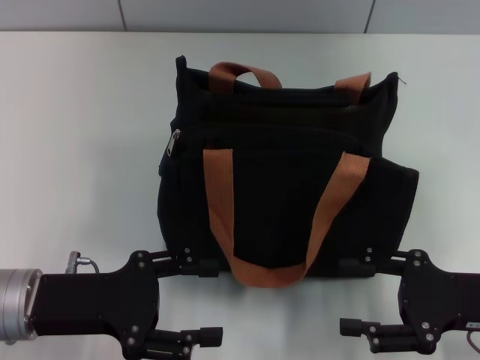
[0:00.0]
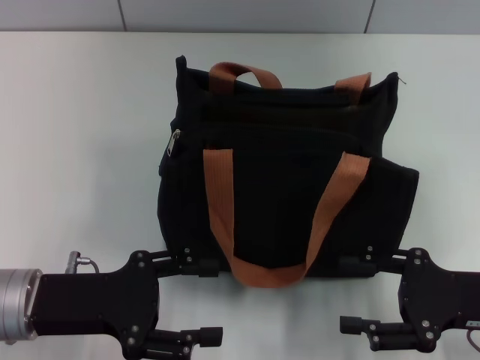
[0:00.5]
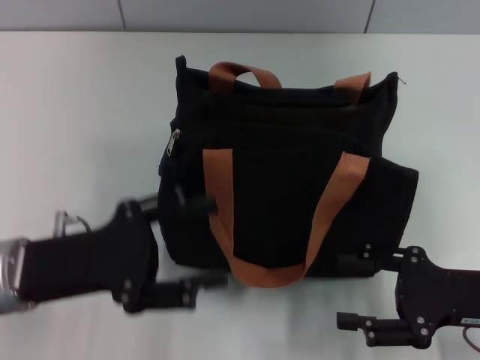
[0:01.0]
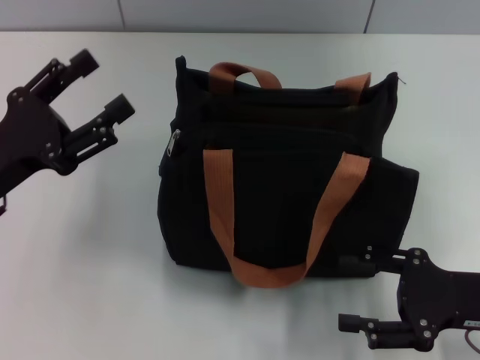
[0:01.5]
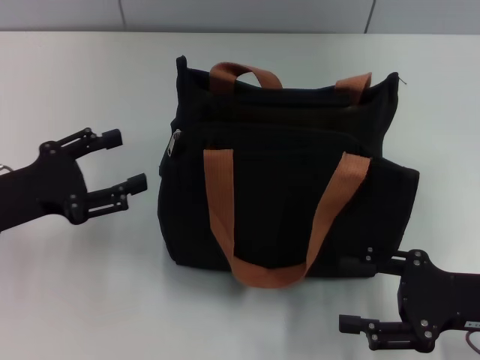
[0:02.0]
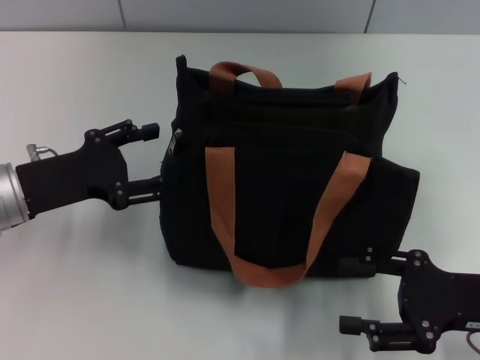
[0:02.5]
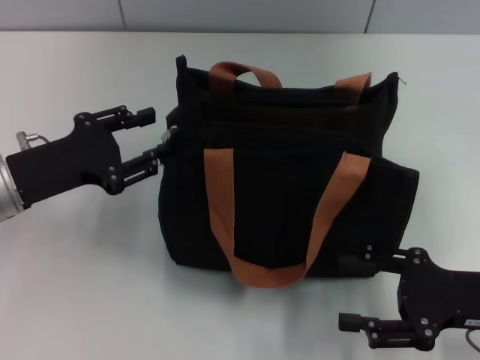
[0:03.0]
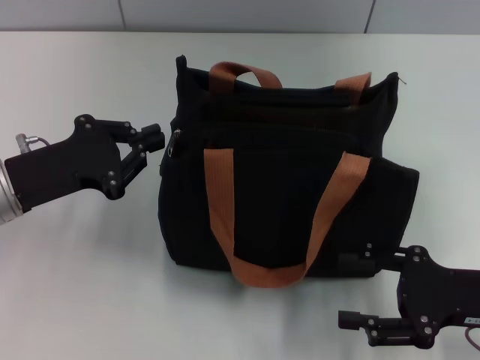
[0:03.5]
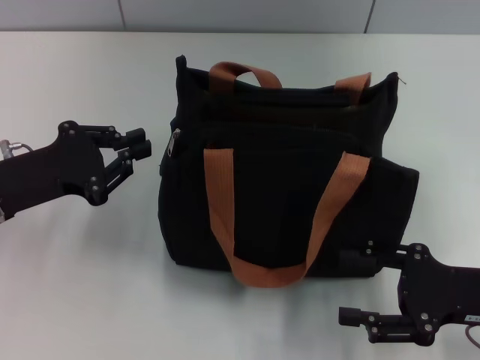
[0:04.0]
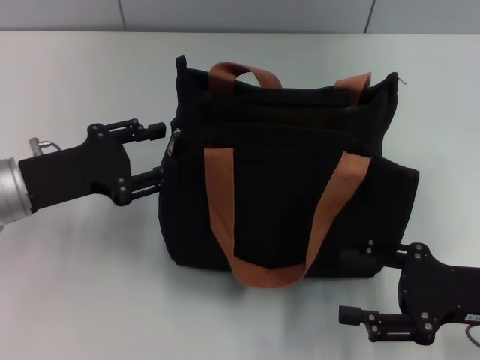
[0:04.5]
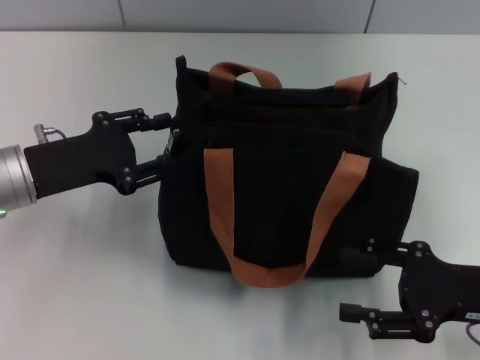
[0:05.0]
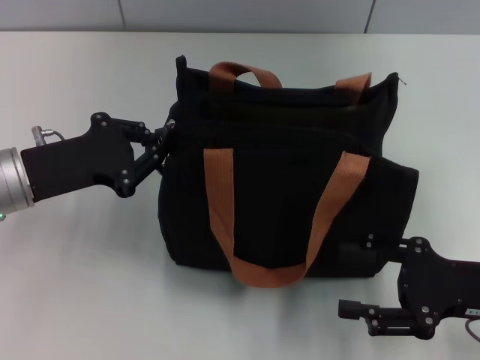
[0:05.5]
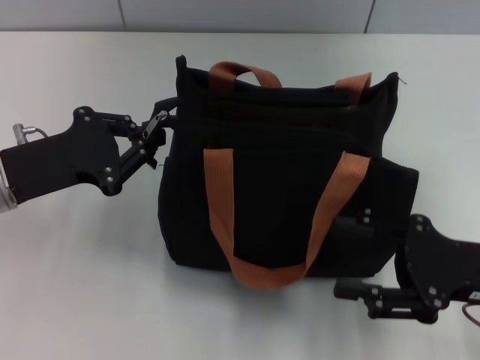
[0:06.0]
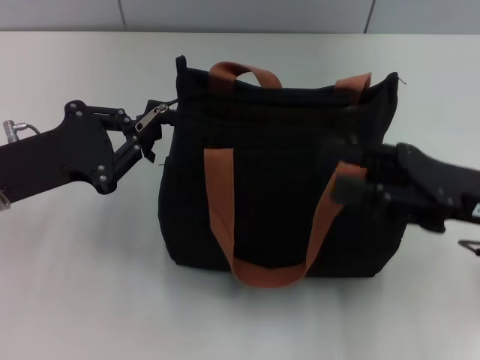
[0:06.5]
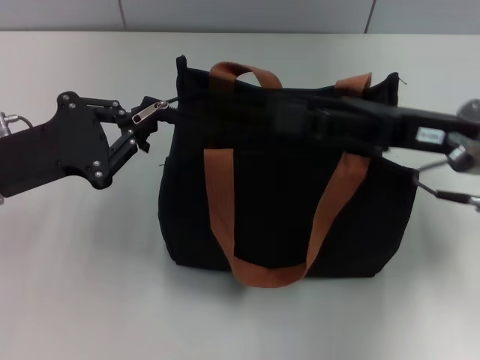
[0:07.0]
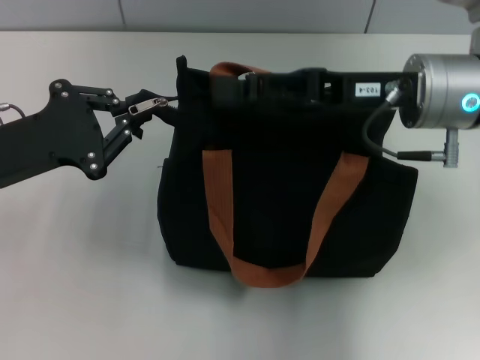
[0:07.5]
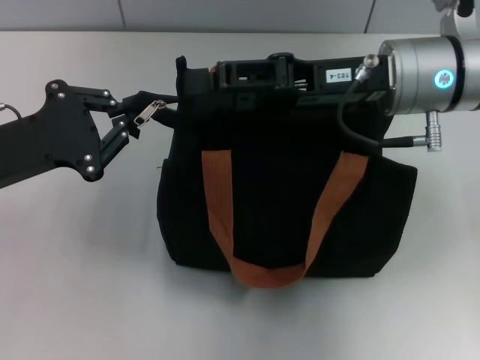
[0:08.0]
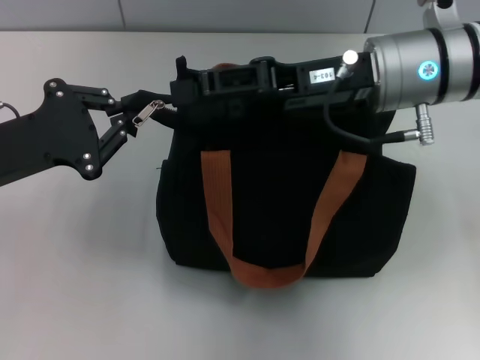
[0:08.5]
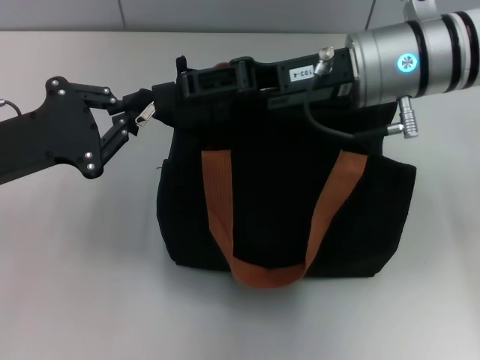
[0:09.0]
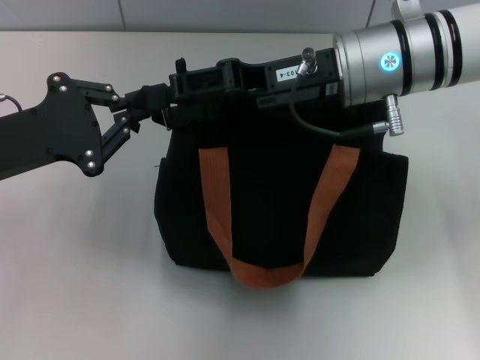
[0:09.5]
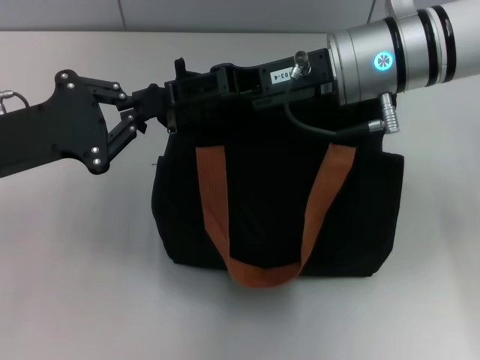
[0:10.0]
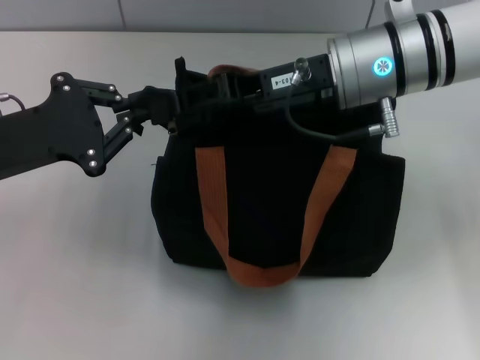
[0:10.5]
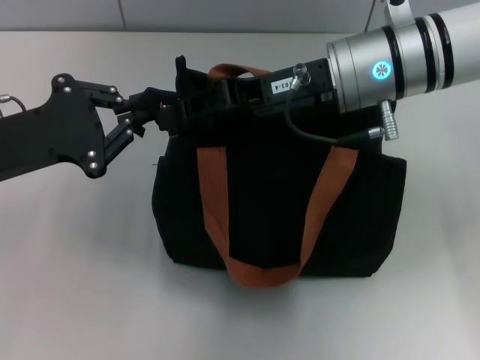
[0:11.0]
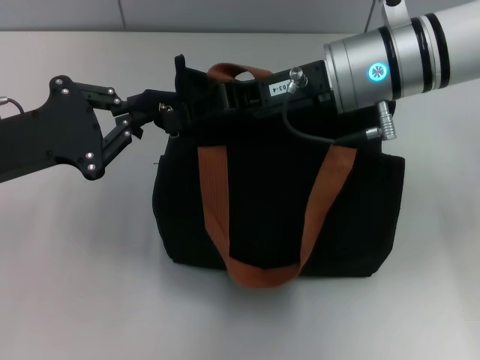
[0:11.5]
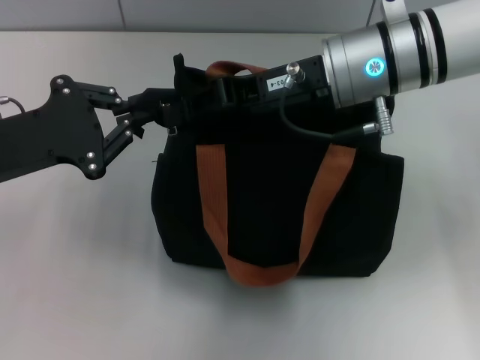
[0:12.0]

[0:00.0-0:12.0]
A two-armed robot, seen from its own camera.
0:00.0 to 0:02.0: The left gripper goes approximately 5 cm to the left.
0:02.0 to 0:04.0: The left gripper closes its fingers.
0:04.0 to 0:06.0: The left gripper opens, then closes again.
0:06.0 to 0:08.0: The right gripper heads forward, to the left and upward, covering some 20 cm.
0:08.0 to 0:10.0: The grippers move only a little.
0:10.0 to 0:12.0: The right gripper closes its fingers.

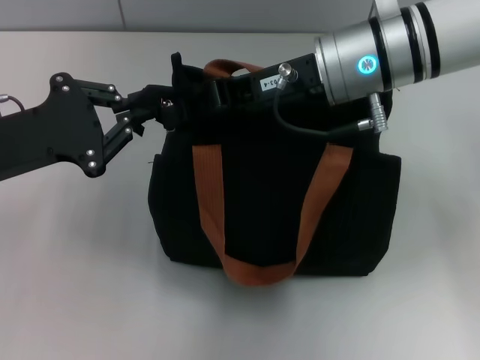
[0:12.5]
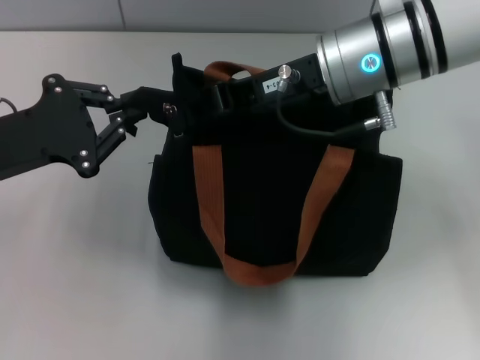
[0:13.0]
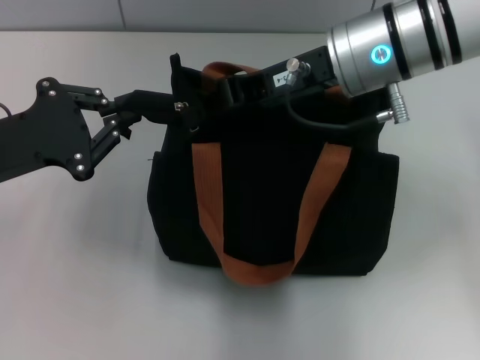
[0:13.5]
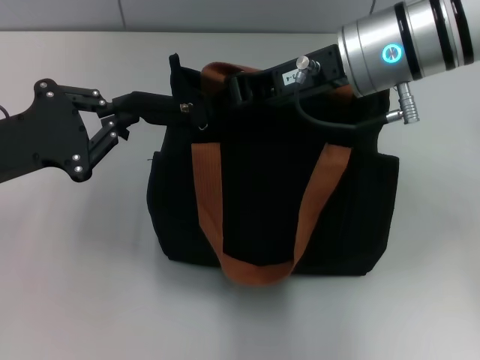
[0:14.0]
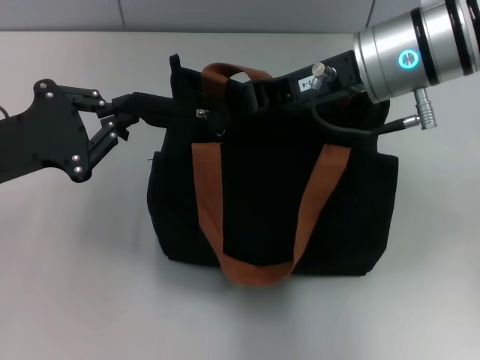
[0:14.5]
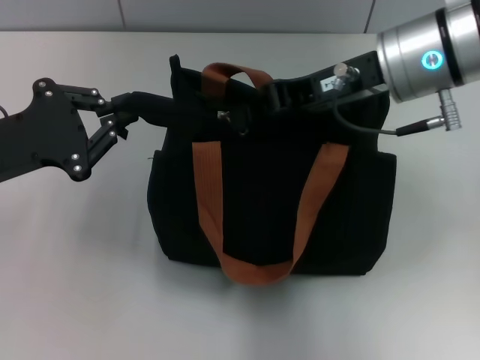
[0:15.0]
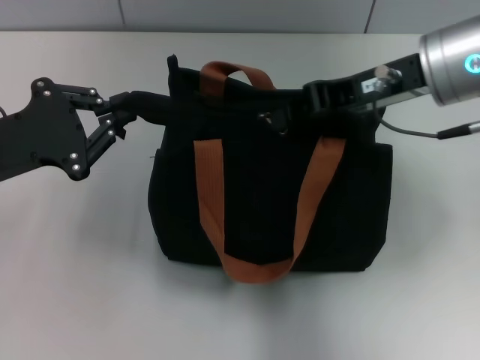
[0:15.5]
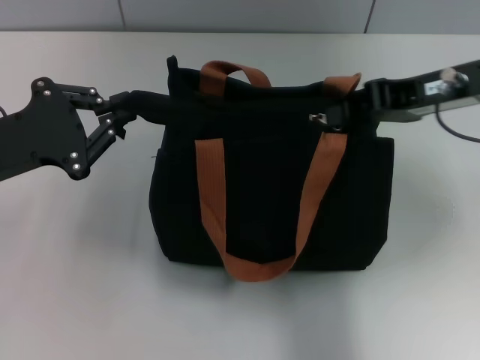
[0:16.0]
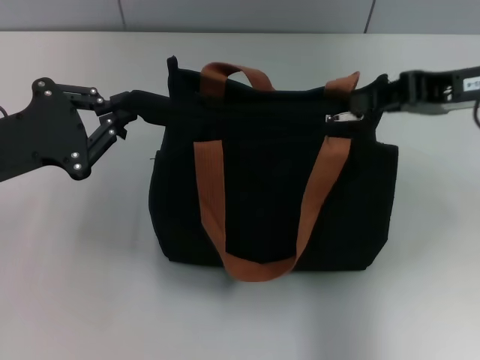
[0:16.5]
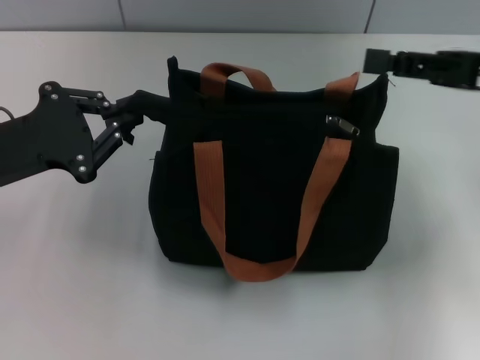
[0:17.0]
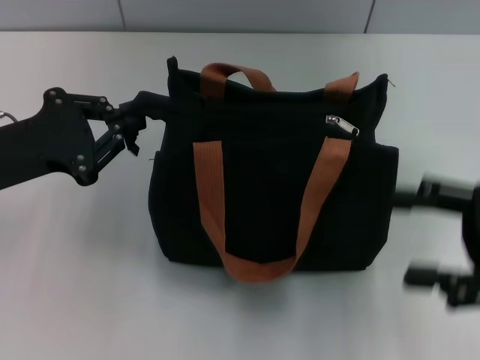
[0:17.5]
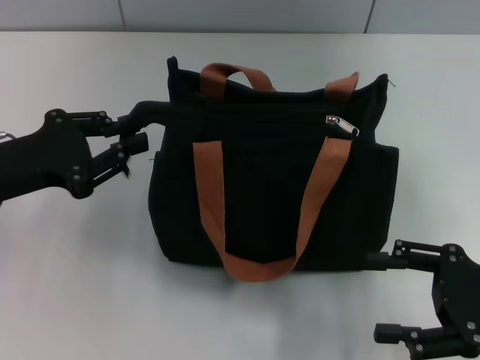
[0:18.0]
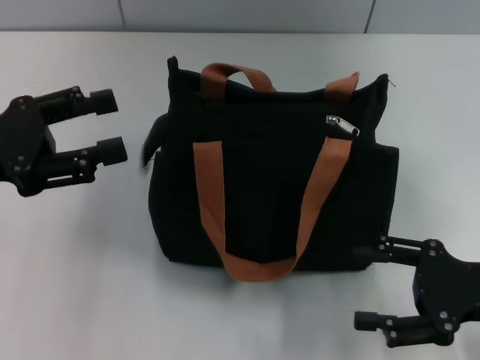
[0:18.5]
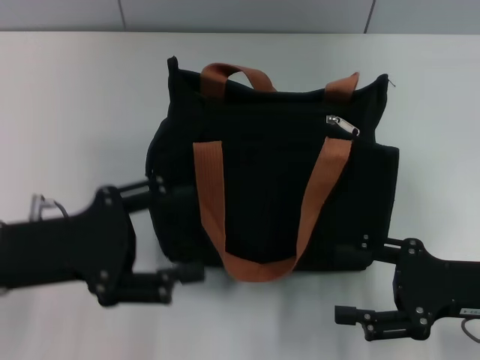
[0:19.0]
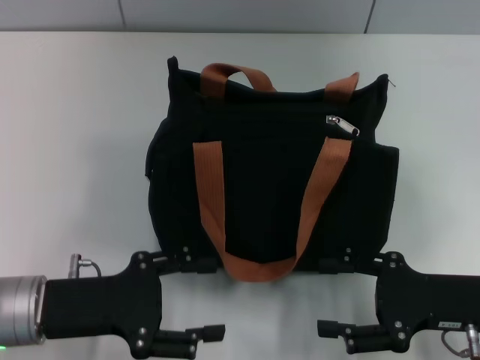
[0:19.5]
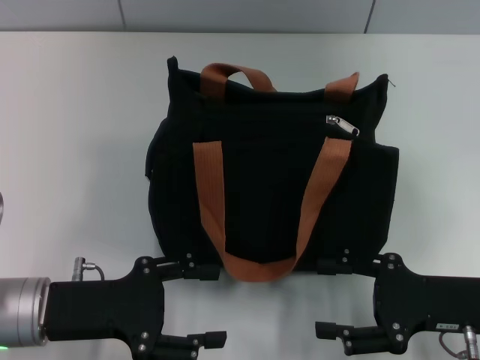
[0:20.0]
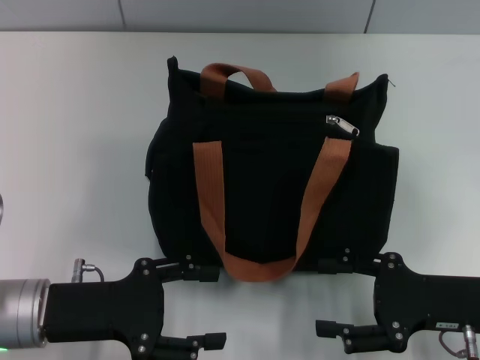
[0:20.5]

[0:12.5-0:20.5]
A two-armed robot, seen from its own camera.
Step, 0:12.5 to 0:16.5: Pull up the zipper with your right hand.
0:12.5 to 0:14.5: There are only small adjustments of the grippers.
0:14.5 to 0:16.5: The right gripper heads to the right, covering some 10 cm.
0:16.5 to 0:18.5: The right gripper travels downward and backward by roughly 20 cm, and opens its fingers, while the left gripper opens its fingers.
0:18.5 to 0:20.5: The left gripper travels downward, to the right and backward by about 15 cm.

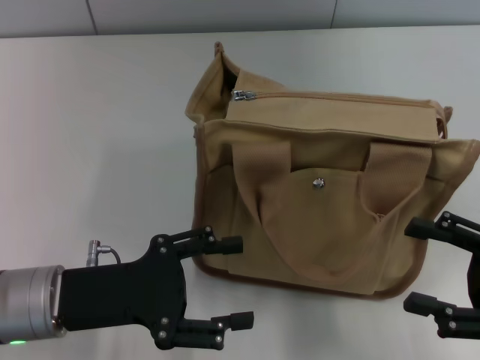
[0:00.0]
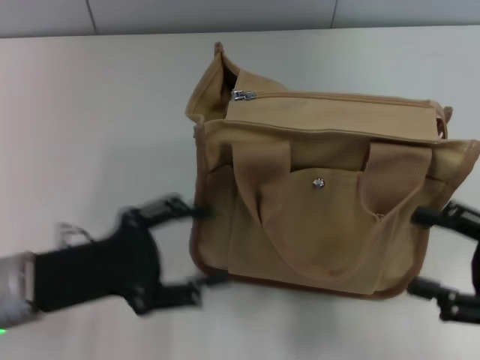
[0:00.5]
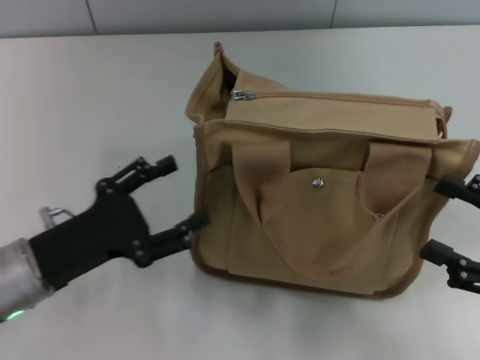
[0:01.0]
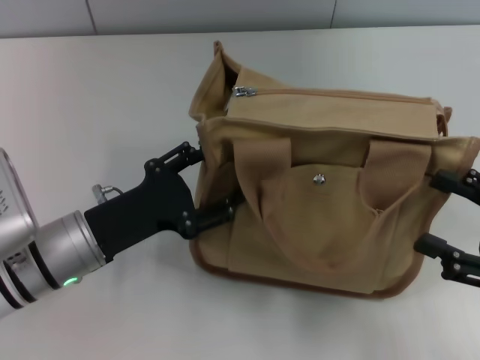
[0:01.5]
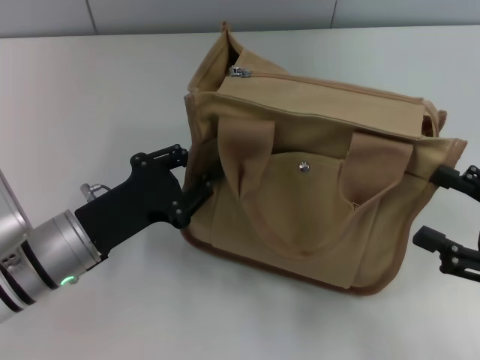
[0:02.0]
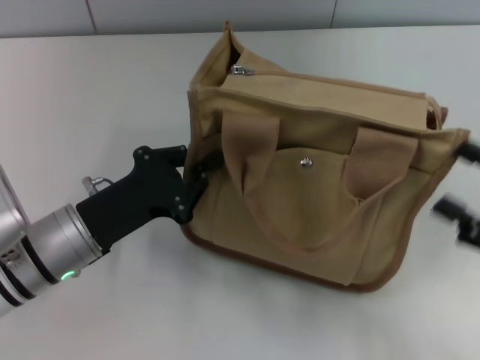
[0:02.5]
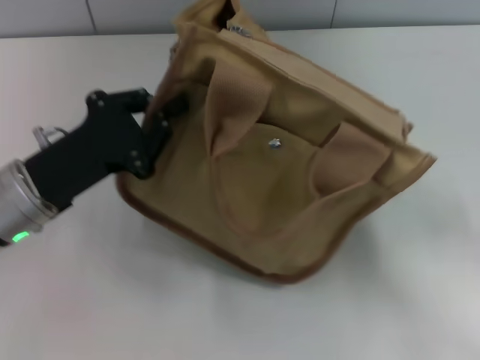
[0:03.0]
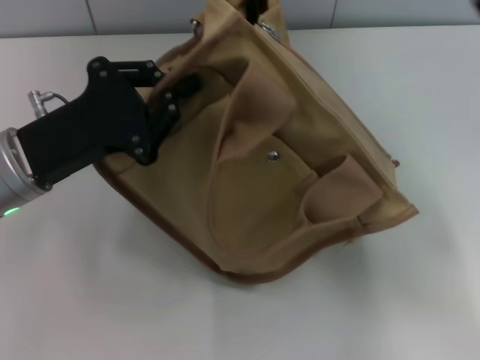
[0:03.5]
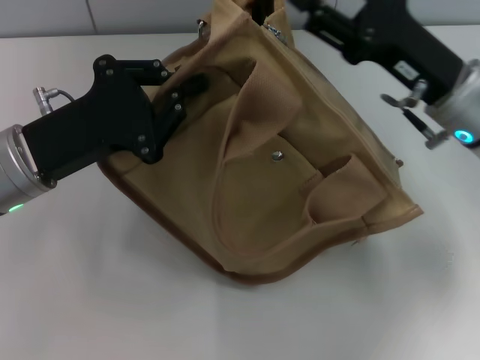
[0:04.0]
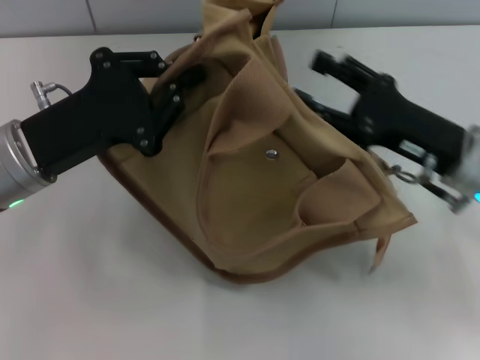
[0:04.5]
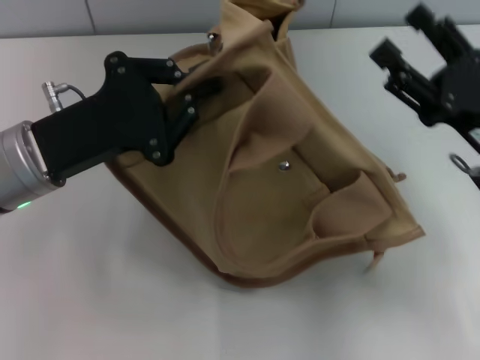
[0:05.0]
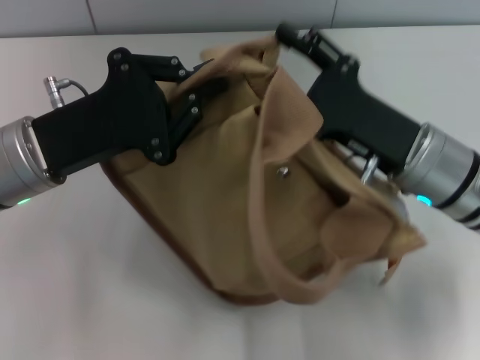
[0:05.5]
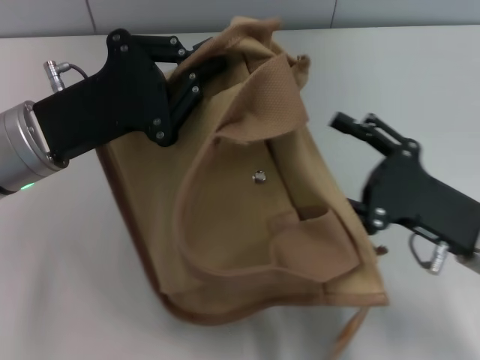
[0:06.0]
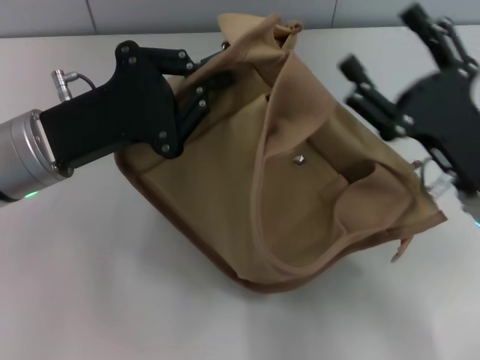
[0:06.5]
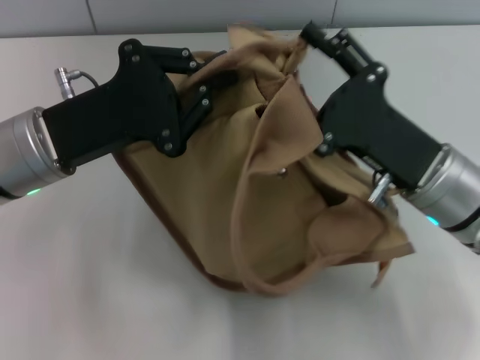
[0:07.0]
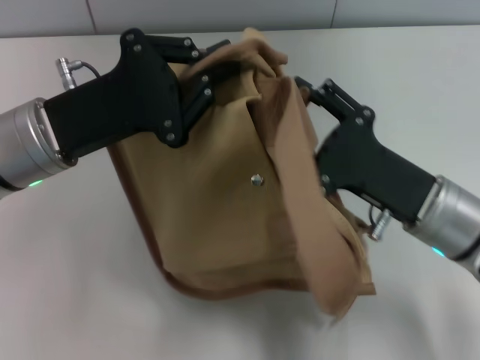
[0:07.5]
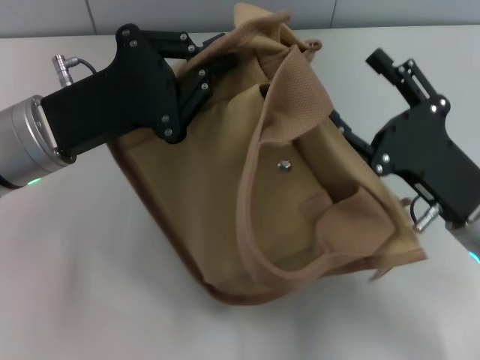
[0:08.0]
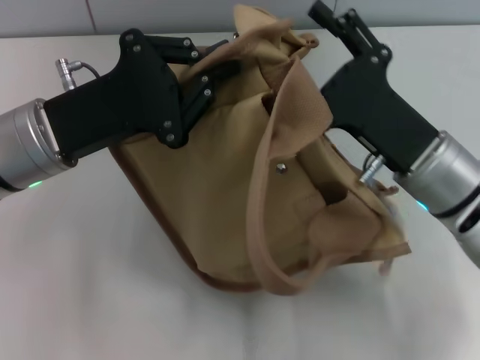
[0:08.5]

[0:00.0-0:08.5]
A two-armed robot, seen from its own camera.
0:02.0 to 0:04.0: The right gripper goes roughly 20 cm forward and to the left; the left gripper moves upward, some 10 cm, and closes.
0:04.0 to 0:06.5: The right gripper is displaced backward by some 10 cm.
